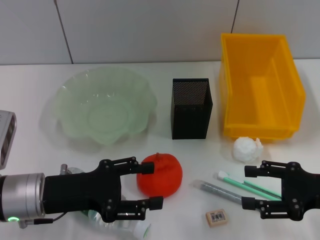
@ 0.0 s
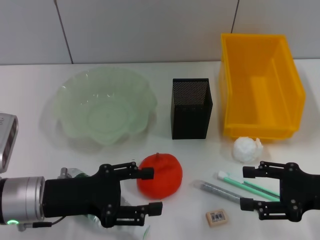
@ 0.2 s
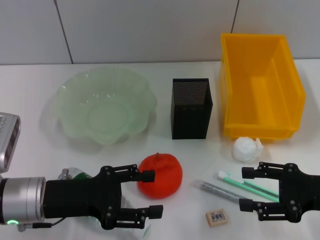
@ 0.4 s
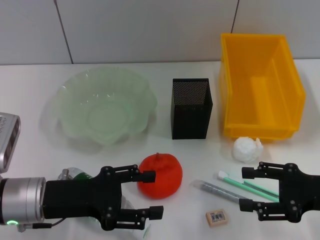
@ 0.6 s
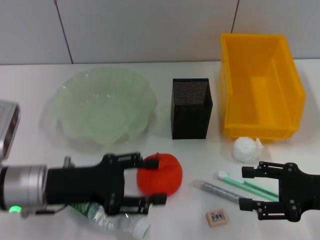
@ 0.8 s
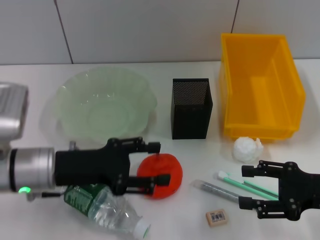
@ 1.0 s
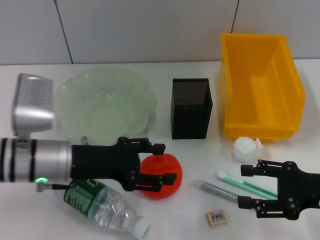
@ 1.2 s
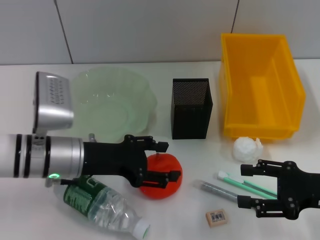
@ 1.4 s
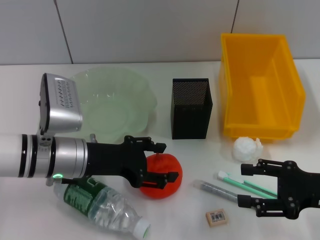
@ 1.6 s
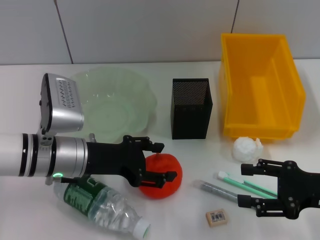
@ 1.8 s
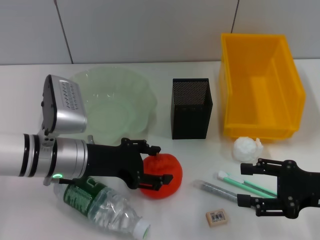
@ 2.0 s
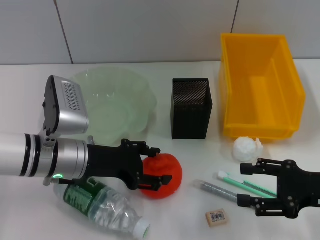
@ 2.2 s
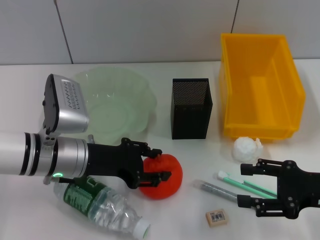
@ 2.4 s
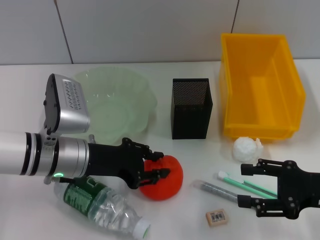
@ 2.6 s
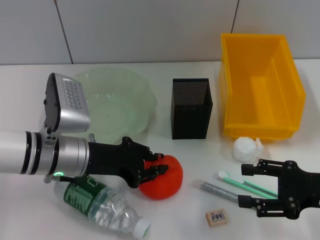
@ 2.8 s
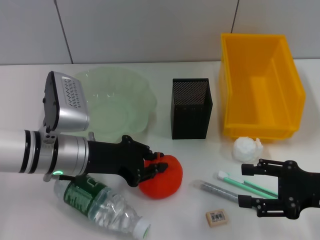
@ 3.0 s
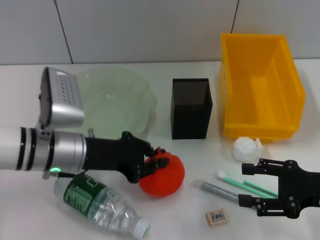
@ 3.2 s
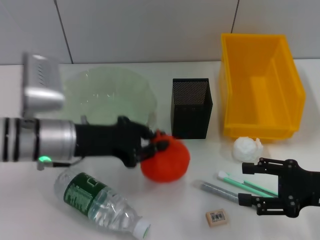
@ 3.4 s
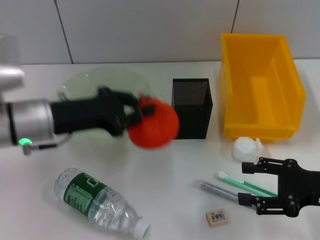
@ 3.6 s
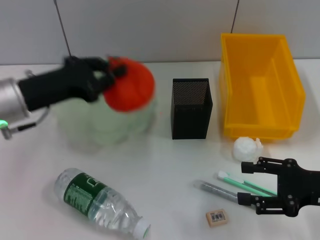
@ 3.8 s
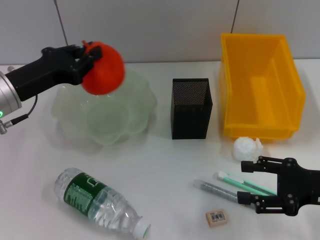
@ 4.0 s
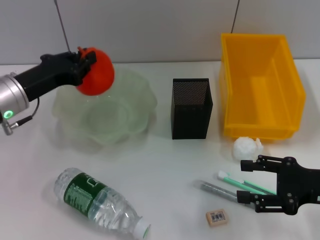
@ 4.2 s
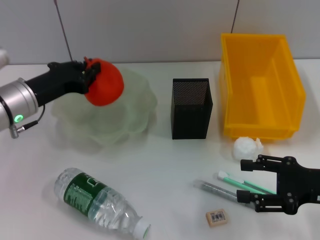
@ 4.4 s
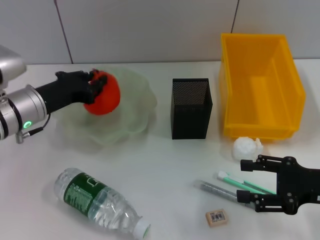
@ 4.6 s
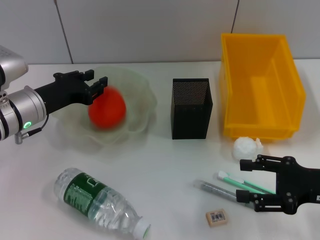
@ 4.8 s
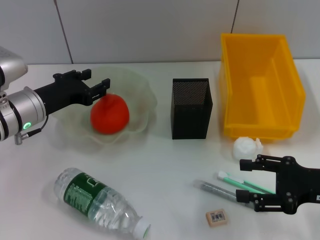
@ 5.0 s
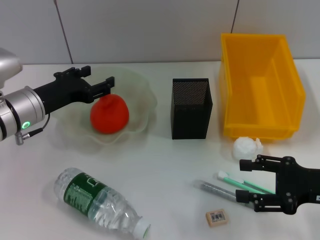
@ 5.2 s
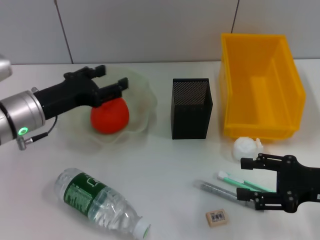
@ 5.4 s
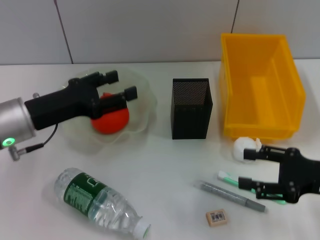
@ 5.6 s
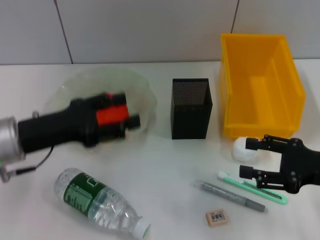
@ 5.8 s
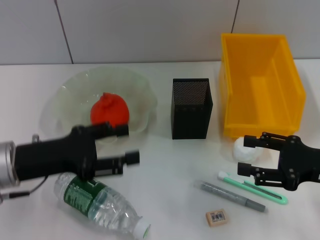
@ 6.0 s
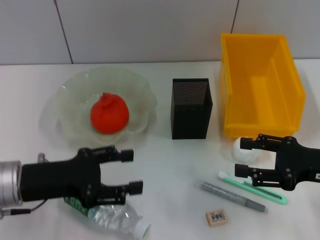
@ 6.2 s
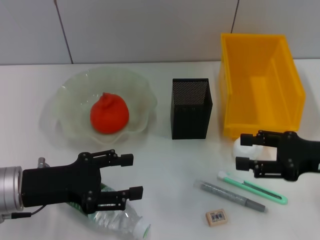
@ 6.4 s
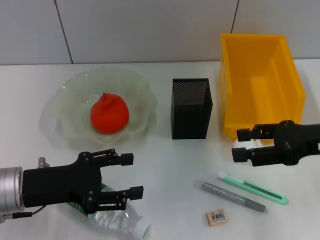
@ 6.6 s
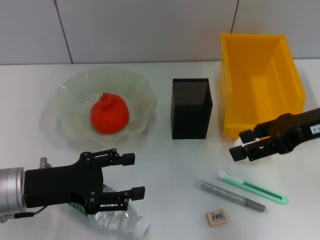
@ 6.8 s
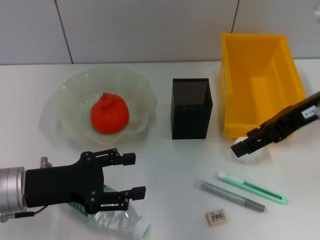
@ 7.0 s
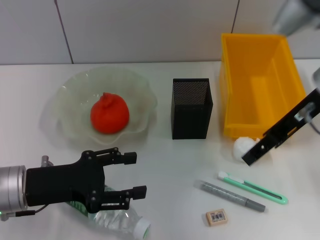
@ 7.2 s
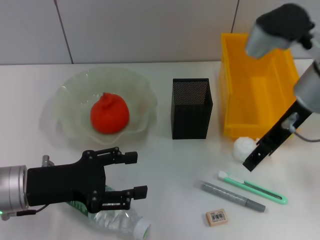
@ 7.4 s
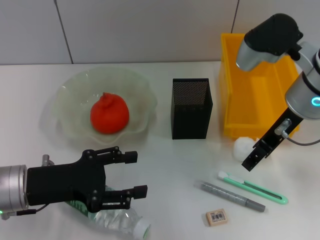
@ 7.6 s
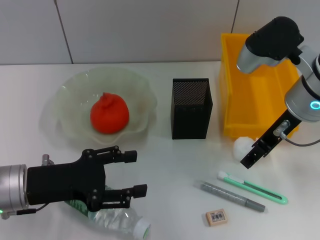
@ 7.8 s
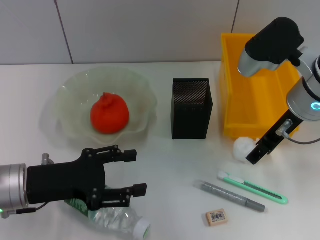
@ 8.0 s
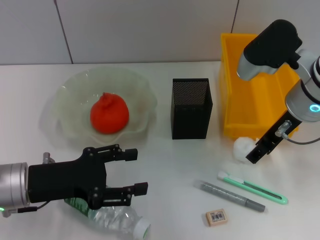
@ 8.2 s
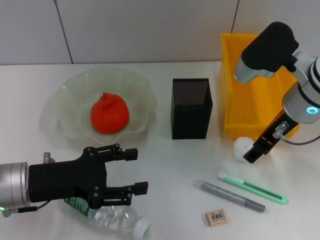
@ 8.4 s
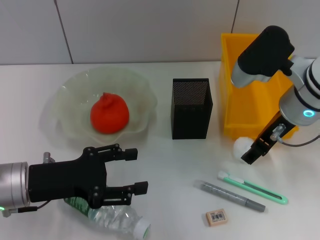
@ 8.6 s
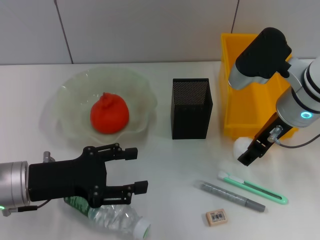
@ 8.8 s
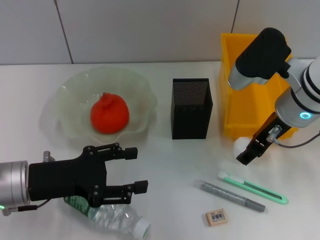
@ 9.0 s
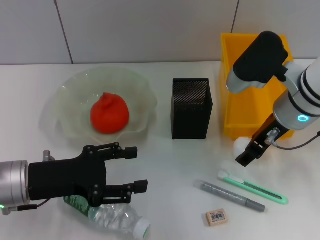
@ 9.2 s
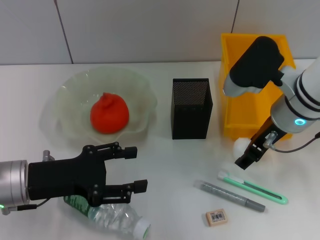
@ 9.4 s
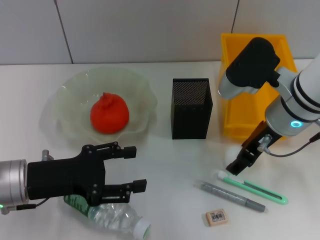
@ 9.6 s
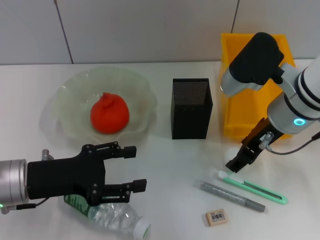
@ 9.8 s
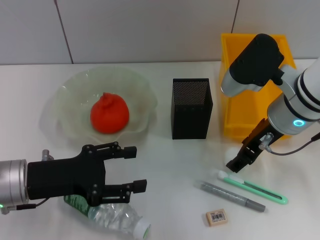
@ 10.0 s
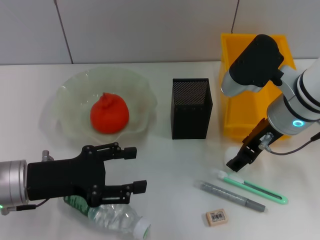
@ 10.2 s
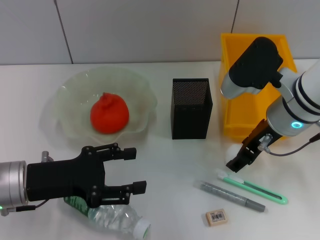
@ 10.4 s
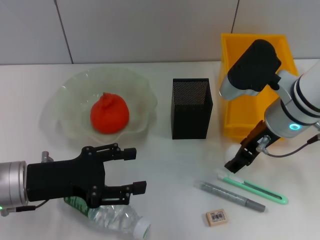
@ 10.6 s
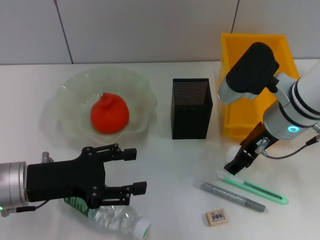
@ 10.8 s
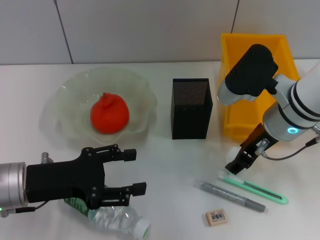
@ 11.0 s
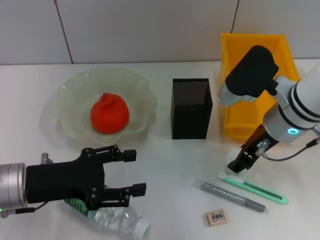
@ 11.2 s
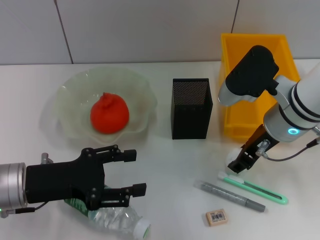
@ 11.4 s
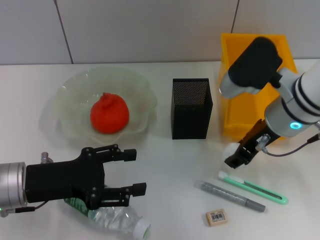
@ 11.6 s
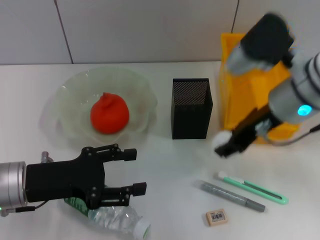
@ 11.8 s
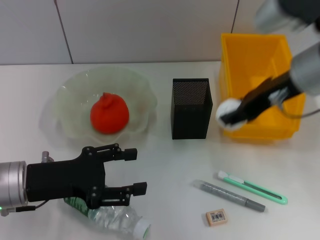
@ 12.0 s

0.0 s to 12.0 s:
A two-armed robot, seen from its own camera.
Step, 0.0 to 2.6 s: Grab the orange with the left hand.
Step, 2.8 to 5.0 s: Place the orange into the fruit bowl with the left hand.
Step, 5.2 to 11.2 s: Grab the paper ball with the right hand.
0.0 to 1.6 s: The left gripper is displaced forward by some 5 cm.
1.6 to 3.0 s: The left gripper closes up.
3.0 to 4.4 s: The left gripper goes roughly 5 cm to the left.
4.4 to 6.0 s: The left gripper moves backward, about 10 cm, and opens.
6.0 to 7.6 s: The right gripper goes about 20 cm to the left, upward and forward.
7.6 to 10.4 s: The grippers make only small movements.
10.4 to 12.0 s: The right gripper moves upward, some 10 cm.

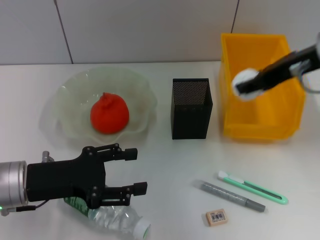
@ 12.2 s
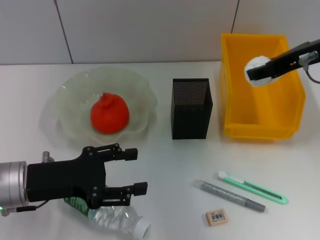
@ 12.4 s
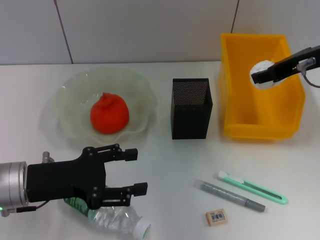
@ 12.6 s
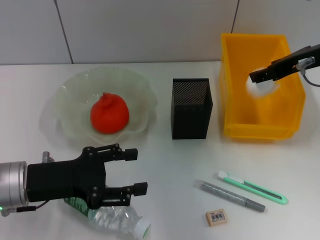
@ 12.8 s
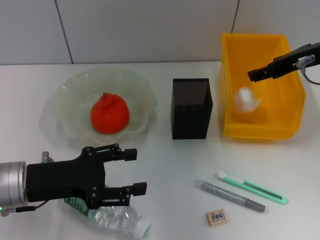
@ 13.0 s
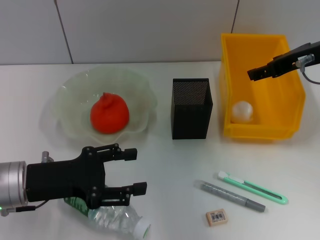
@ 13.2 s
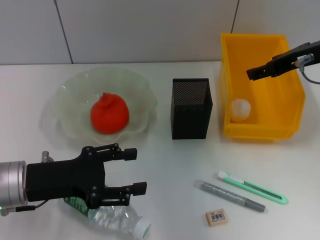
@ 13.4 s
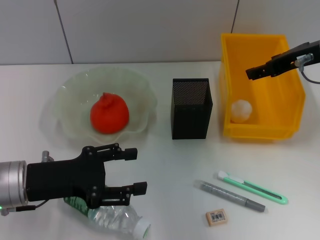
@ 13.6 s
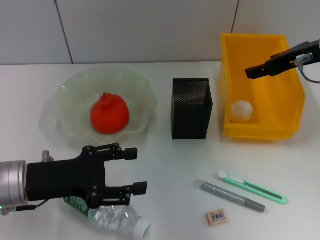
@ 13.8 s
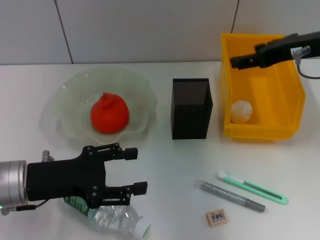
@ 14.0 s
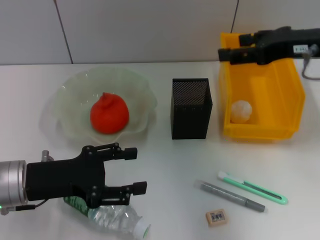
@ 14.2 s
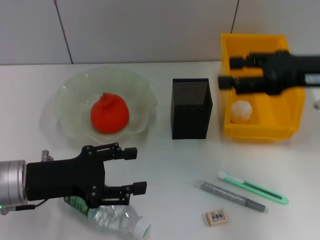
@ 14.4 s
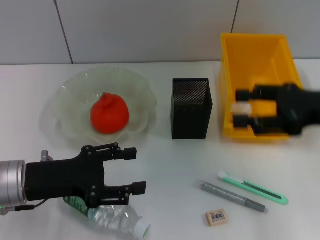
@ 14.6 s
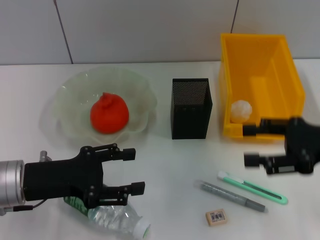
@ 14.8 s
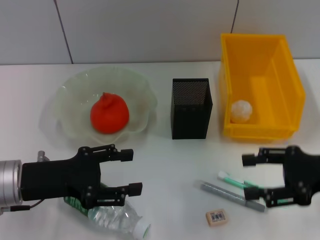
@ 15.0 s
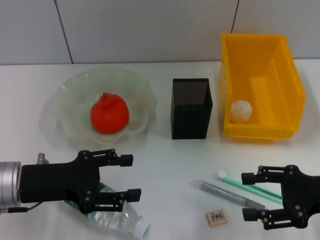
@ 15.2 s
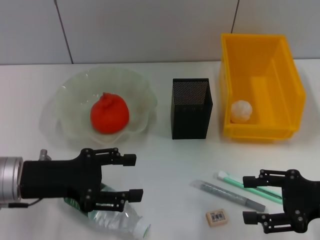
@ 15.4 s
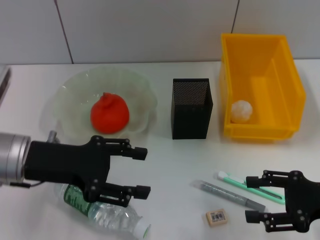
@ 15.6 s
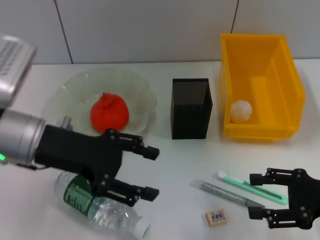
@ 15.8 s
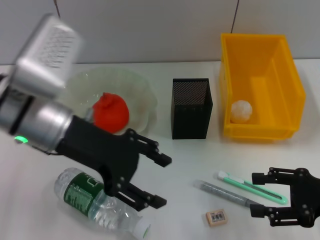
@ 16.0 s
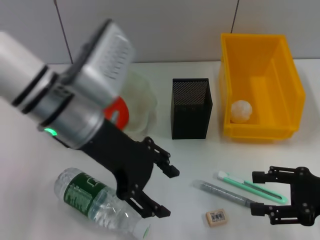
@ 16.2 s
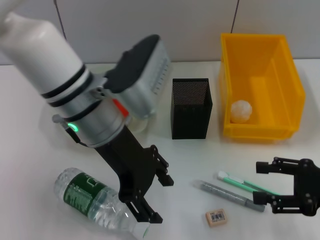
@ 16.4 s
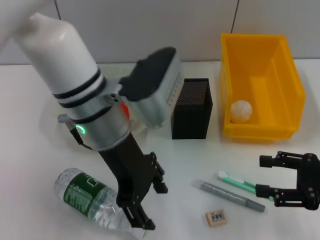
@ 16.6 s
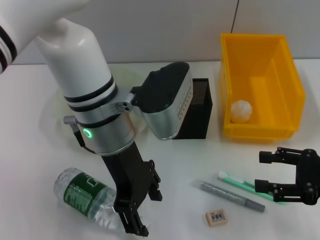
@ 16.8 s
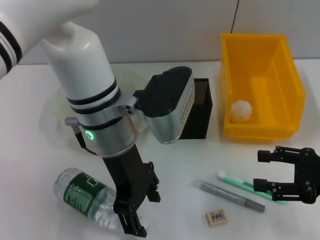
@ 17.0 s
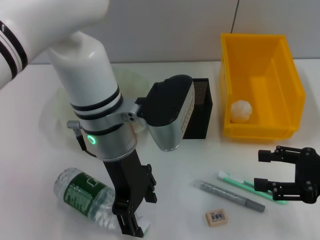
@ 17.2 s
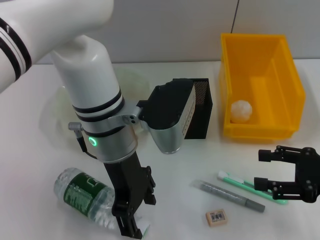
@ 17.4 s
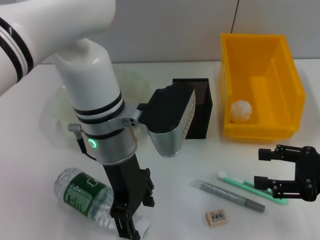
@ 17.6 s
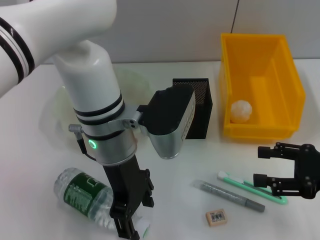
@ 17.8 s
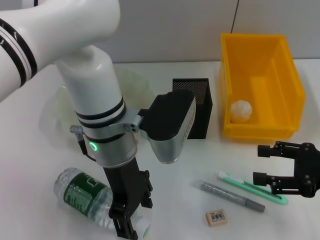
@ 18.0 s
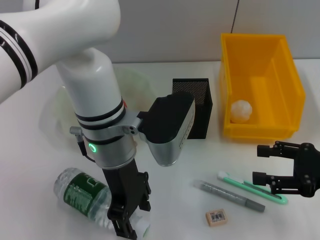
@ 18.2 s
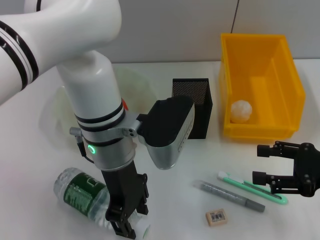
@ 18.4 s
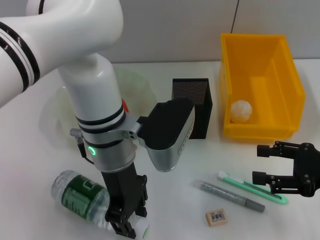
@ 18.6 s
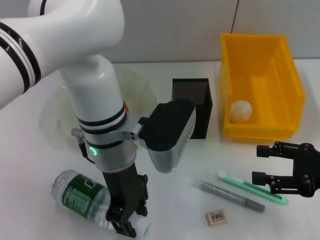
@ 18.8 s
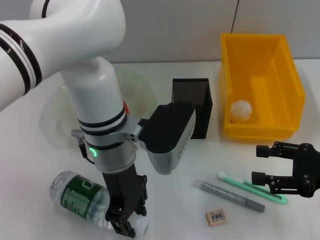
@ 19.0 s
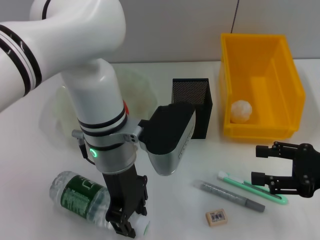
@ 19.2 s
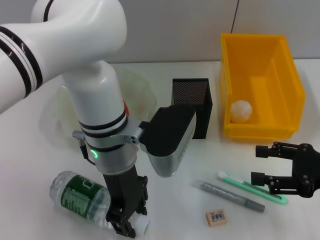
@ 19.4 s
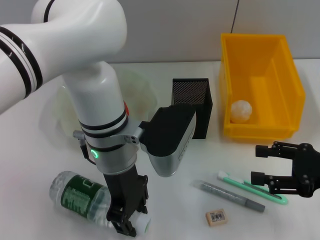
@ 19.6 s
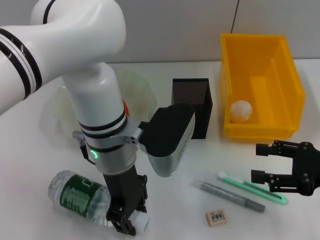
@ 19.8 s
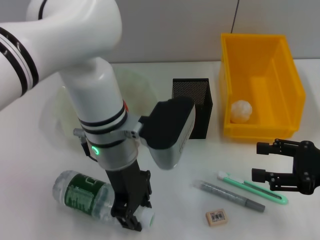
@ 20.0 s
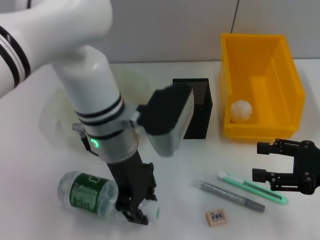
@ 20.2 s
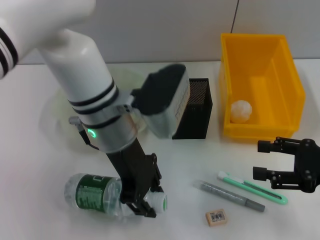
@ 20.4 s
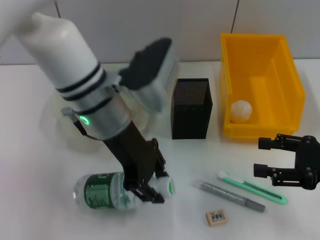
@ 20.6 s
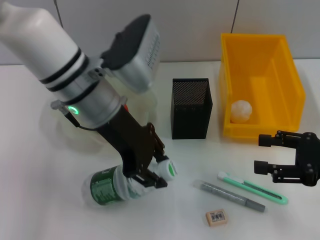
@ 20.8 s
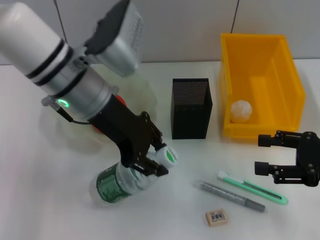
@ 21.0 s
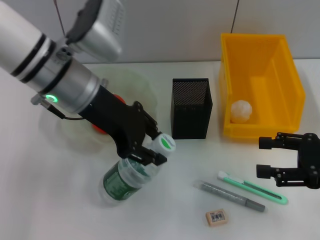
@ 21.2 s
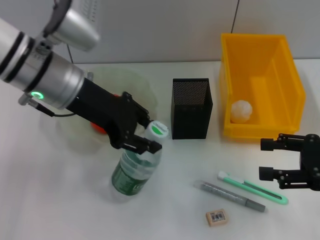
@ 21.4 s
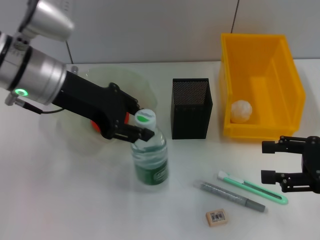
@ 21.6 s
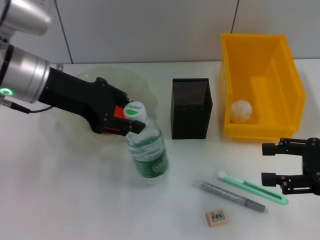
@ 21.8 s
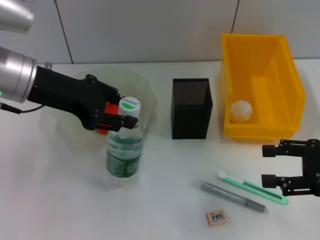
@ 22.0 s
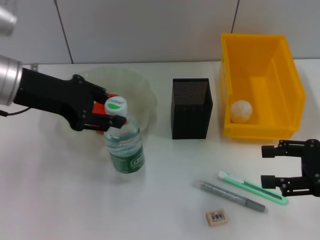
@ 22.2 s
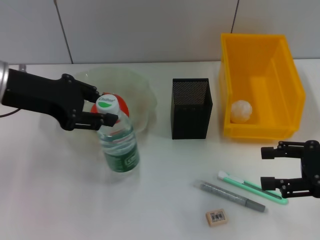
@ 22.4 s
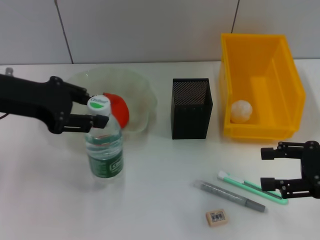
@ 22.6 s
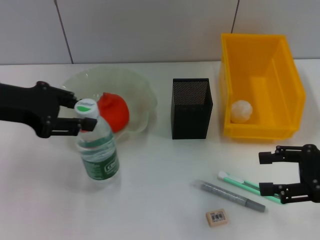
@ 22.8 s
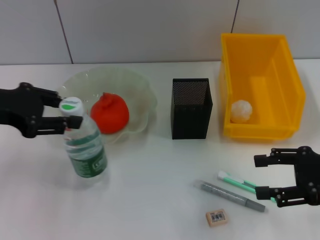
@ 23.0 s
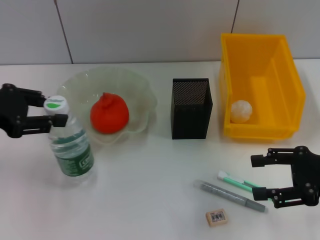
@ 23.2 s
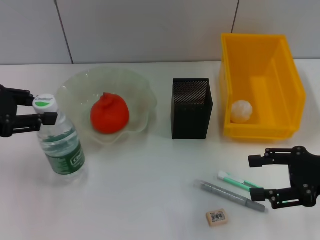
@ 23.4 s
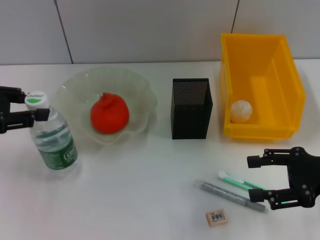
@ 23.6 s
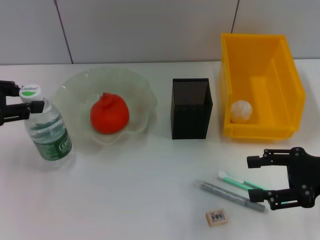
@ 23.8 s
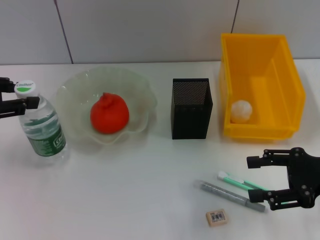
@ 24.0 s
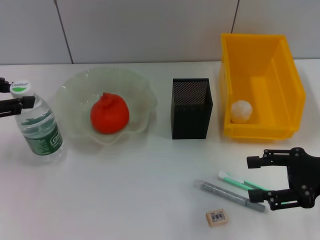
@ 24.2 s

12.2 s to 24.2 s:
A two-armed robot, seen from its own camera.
Step, 13.2 to 20.0 s: Grab the water bottle with the left hand.
12.2 to 13.8 s: The right gripper opens.
13.8 to 15.2 s: The right gripper goes approximately 20 cm backward, downward and to the right.
15.2 to 16.6 s: The left gripper goes roughly 20 cm to the right, upward and forward.
18.2 to 19.8 s: The left gripper closes up.
19.8 to 21.2 s: The left gripper moves upward and to the left, approximately 10 cm.
21.2 to 22.6 s: The left gripper heads to the left, covering about 15 cm.
22.6 to 24.2 s: The left gripper heads to the left, covering about 10 cm.
